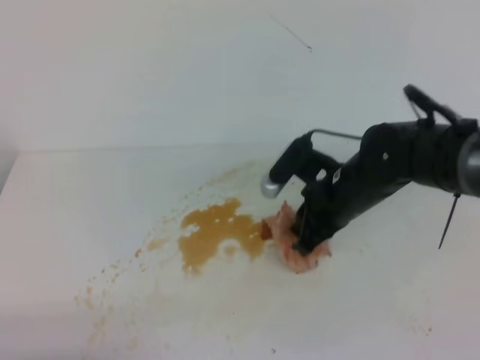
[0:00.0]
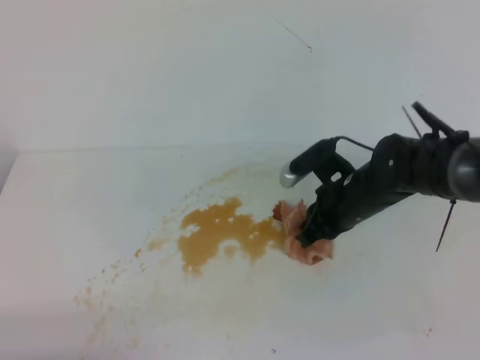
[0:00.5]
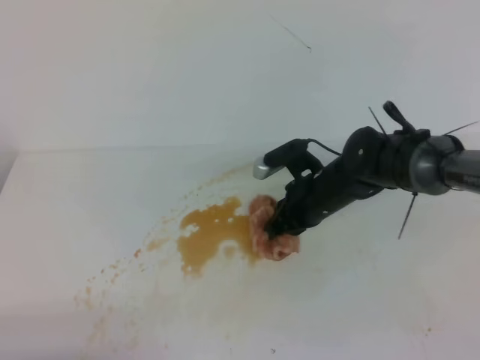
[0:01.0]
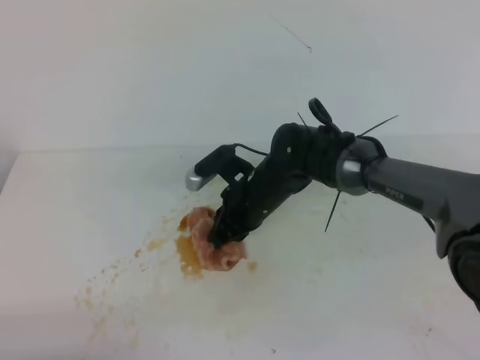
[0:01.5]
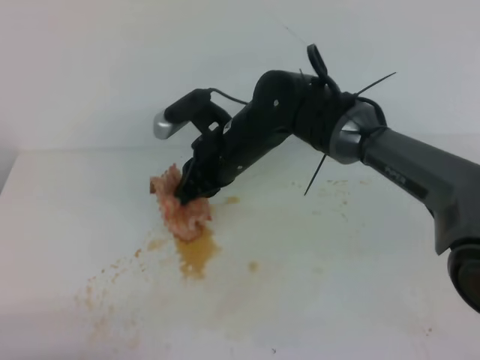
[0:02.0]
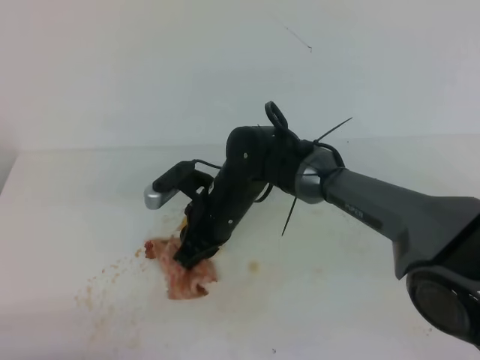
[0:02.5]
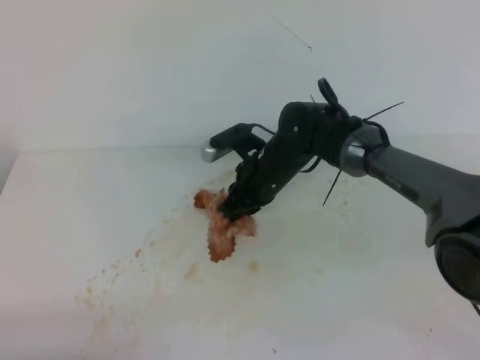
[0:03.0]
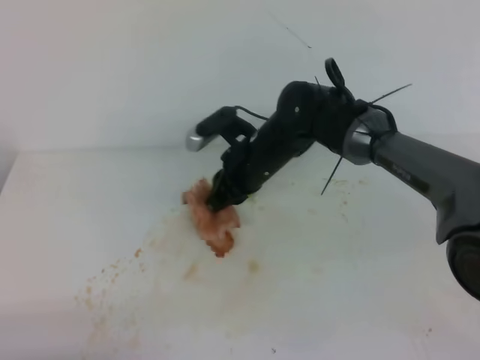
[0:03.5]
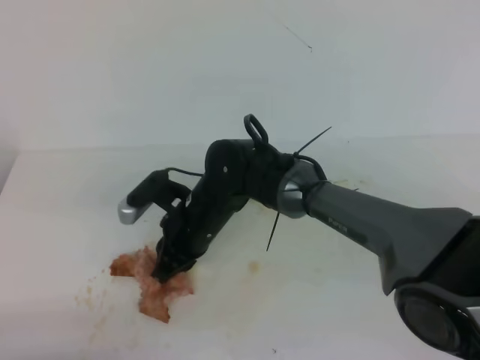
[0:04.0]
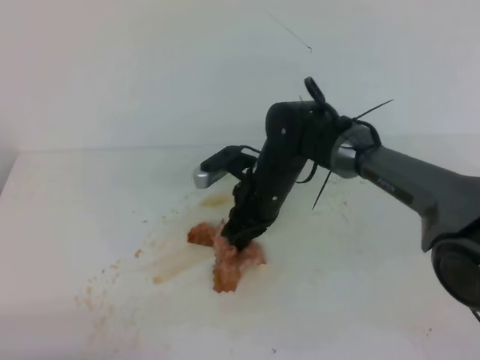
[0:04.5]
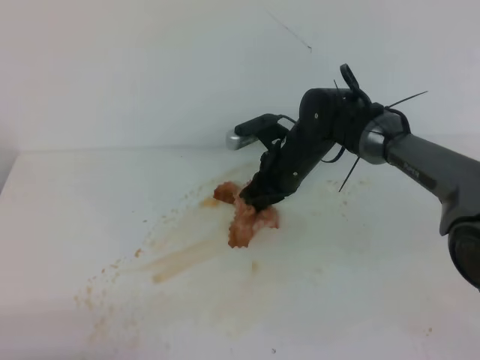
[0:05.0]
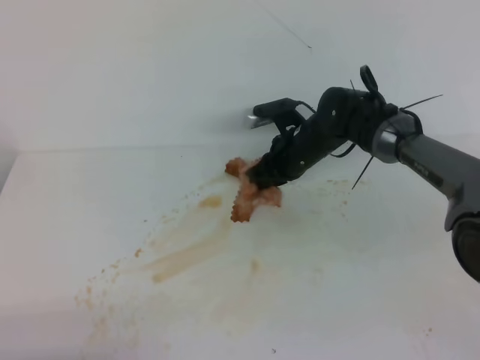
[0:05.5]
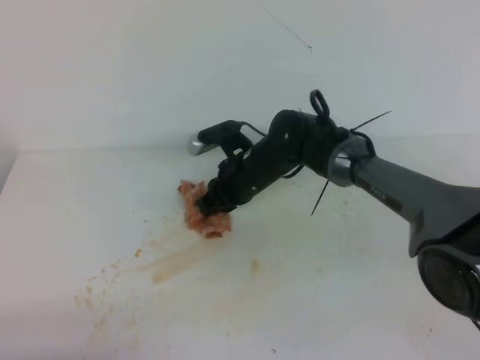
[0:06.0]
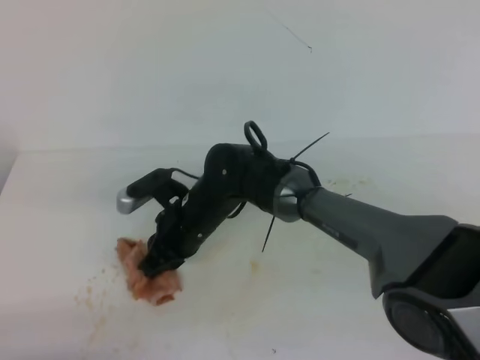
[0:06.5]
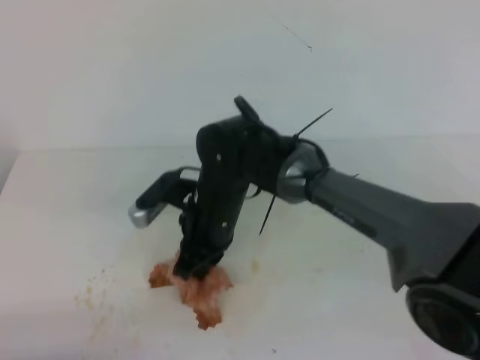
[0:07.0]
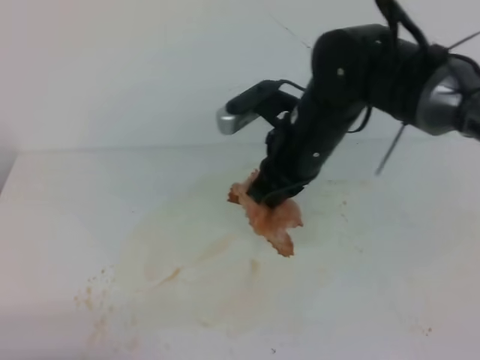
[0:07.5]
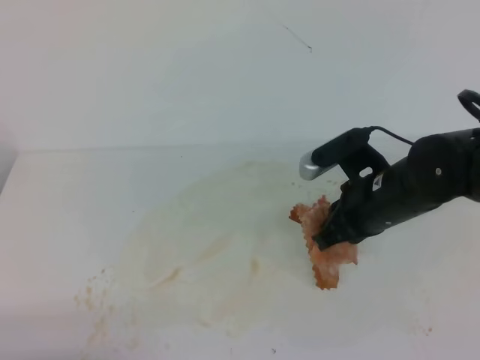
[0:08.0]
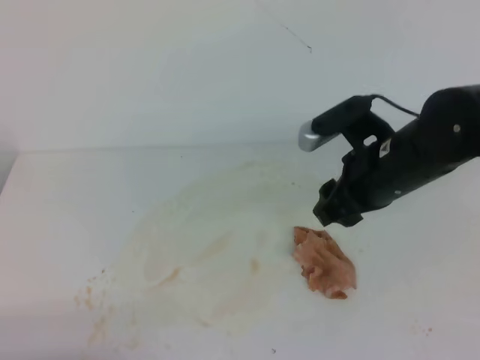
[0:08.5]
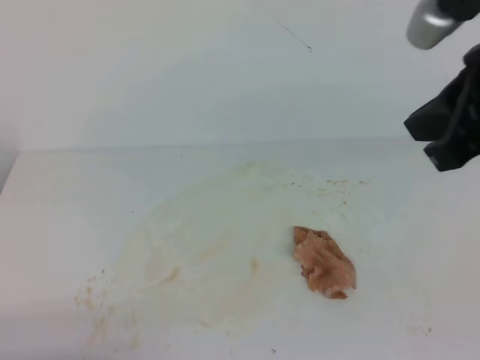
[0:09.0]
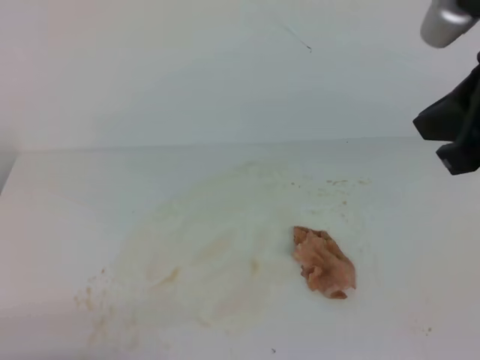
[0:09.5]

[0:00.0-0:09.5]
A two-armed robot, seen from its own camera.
0:00.0 to 0:02.0: The right gripper moves to the left and forward, roughly 15 cm.
0:02.0 to 0:04.0: The right gripper ends up some 5 cm from where it was.
0:04.0 to 0:05.5: The right gripper shifts some 20 cm to the right and forward.
0:05.5 to 0:07.5: The right gripper is displaced upward and backward by about 20 cm, and travels to the left and back again, some 15 cm each way.
0:07.5 to 0:09.5: The right gripper travels upward, to the right and backward by about 25 cm, and opens, then closes once more.

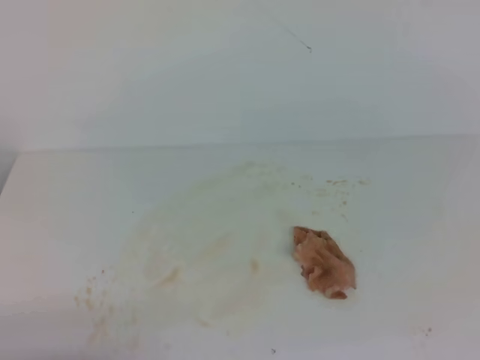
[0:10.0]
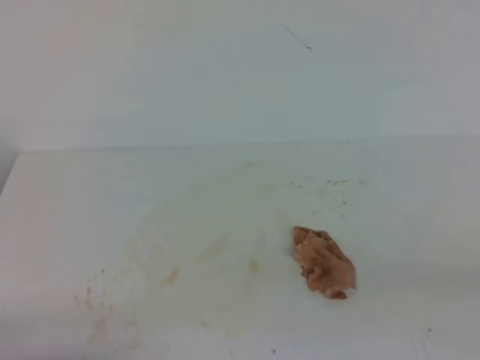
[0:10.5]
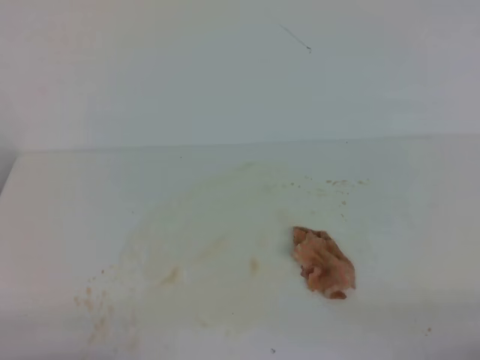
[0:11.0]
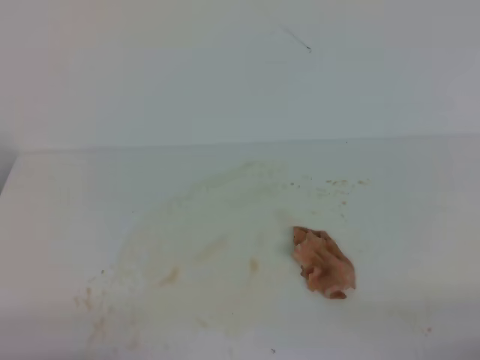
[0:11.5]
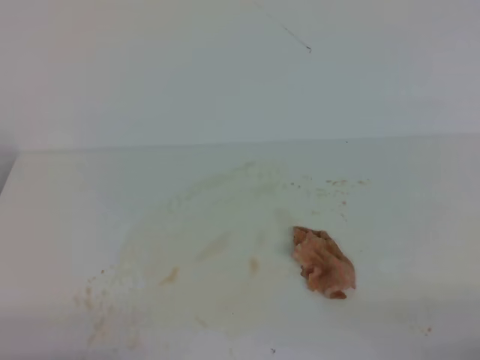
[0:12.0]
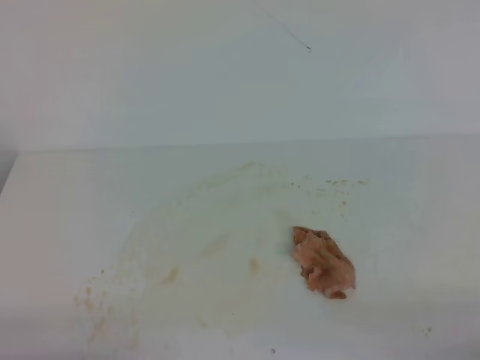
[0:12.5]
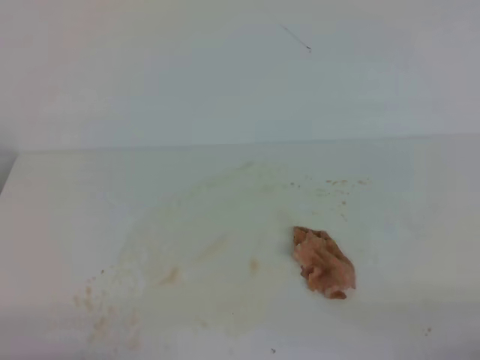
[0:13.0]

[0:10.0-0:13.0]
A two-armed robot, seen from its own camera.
0:10.0 to 0:11.5: The right gripper heads downward, covering about 25 cm.
0:11.5 to 0:13.0: The two grippers keep their place.
